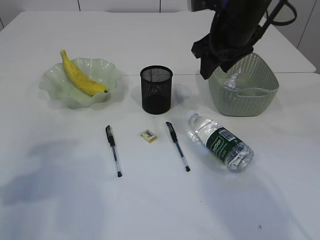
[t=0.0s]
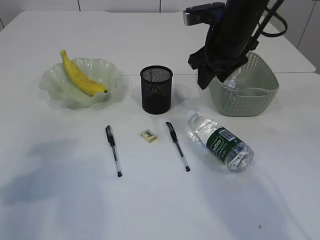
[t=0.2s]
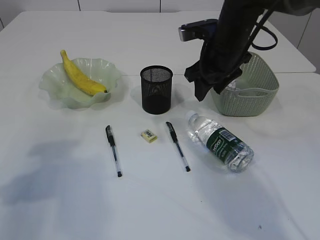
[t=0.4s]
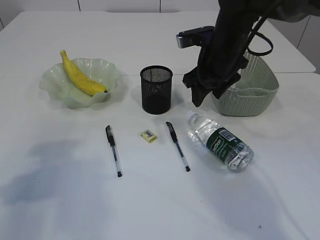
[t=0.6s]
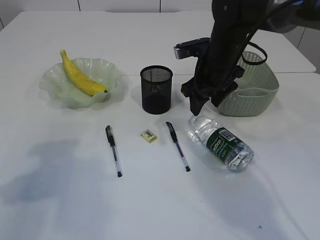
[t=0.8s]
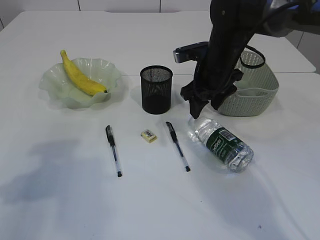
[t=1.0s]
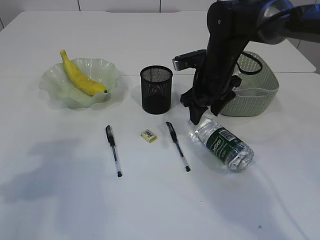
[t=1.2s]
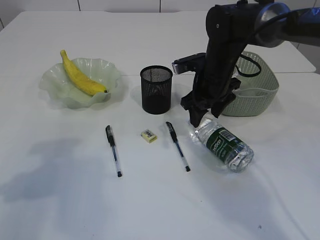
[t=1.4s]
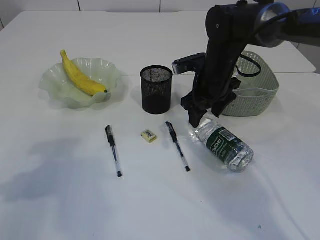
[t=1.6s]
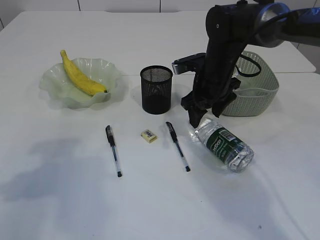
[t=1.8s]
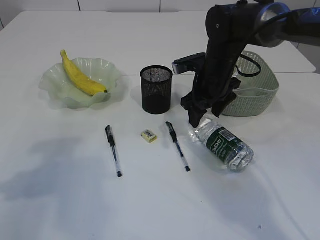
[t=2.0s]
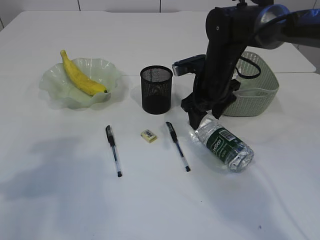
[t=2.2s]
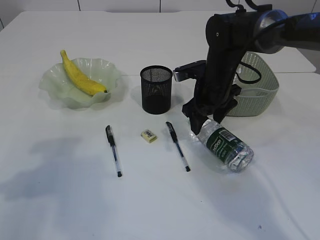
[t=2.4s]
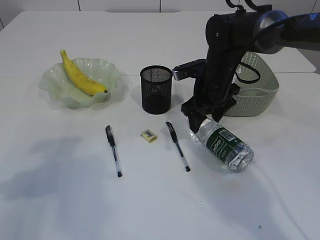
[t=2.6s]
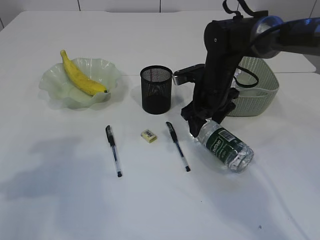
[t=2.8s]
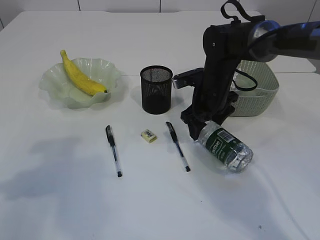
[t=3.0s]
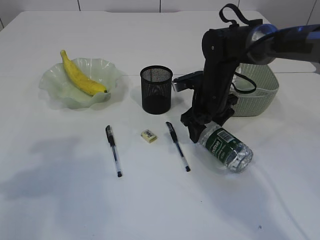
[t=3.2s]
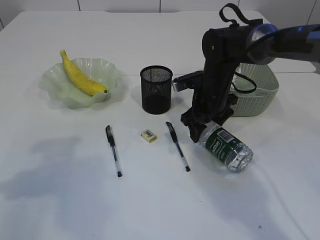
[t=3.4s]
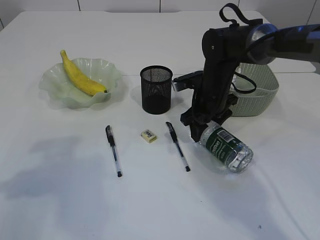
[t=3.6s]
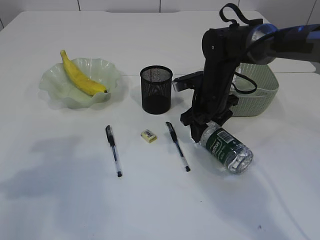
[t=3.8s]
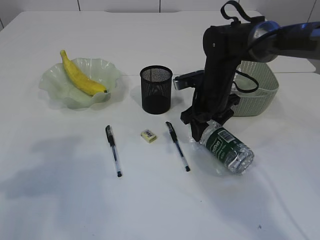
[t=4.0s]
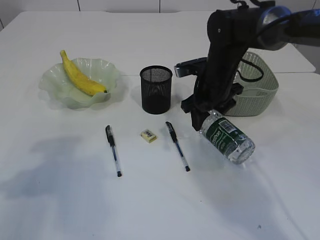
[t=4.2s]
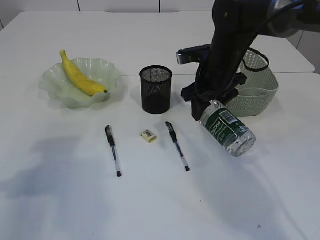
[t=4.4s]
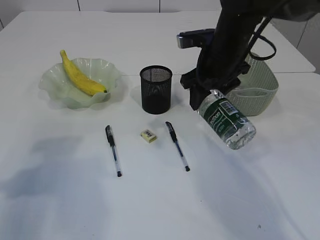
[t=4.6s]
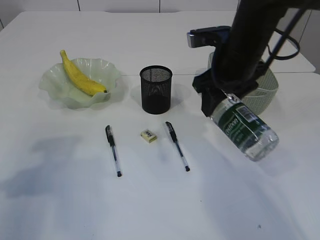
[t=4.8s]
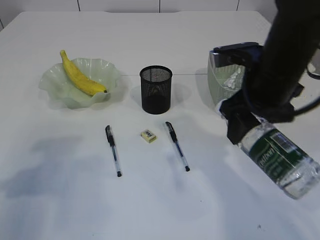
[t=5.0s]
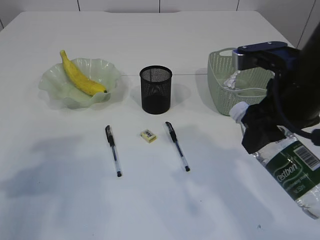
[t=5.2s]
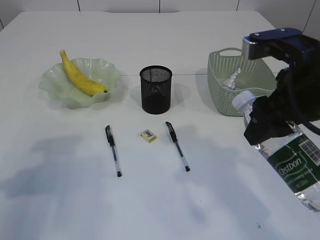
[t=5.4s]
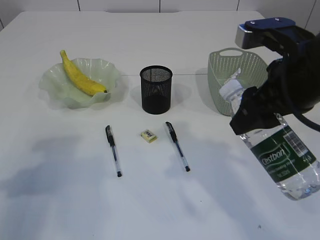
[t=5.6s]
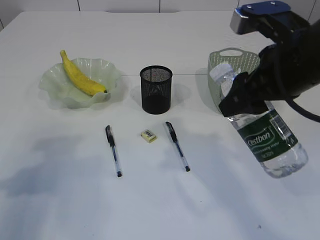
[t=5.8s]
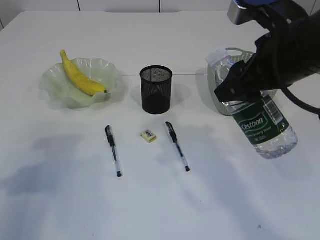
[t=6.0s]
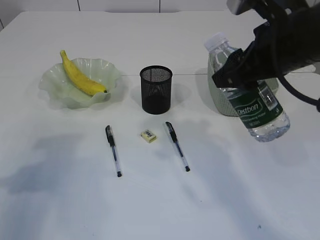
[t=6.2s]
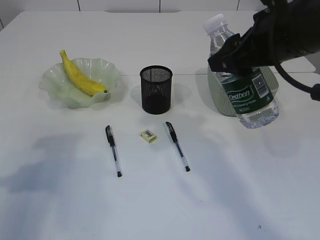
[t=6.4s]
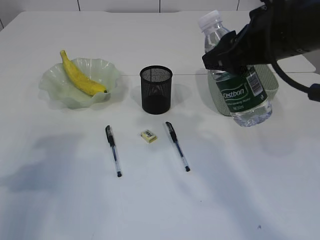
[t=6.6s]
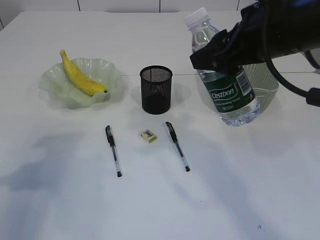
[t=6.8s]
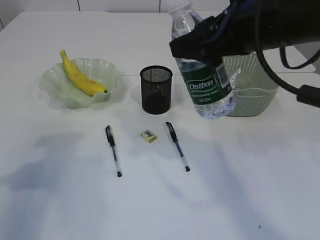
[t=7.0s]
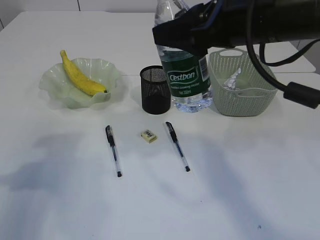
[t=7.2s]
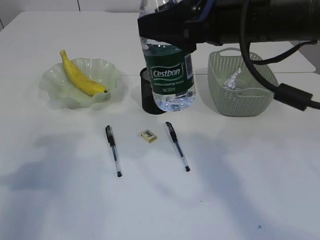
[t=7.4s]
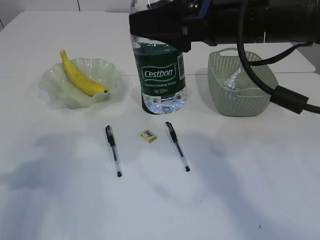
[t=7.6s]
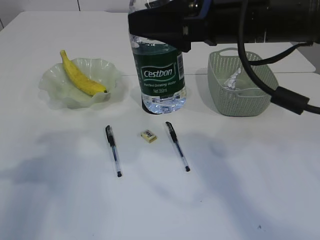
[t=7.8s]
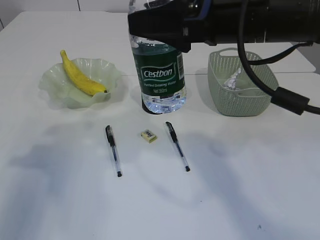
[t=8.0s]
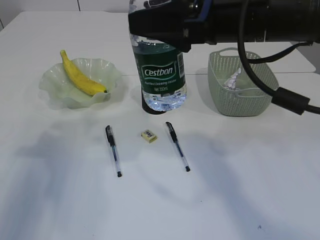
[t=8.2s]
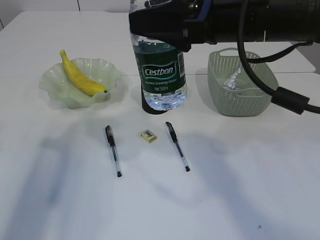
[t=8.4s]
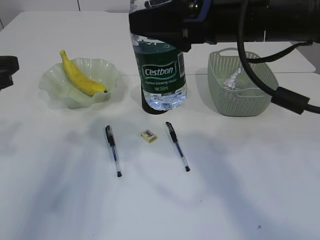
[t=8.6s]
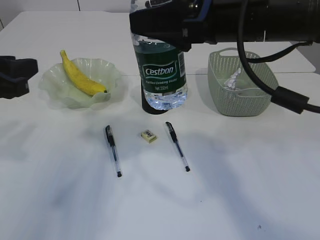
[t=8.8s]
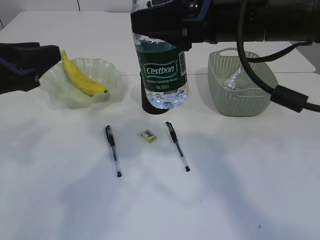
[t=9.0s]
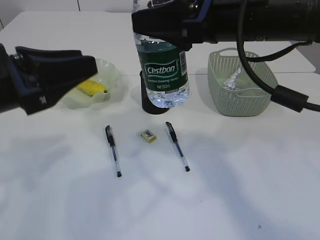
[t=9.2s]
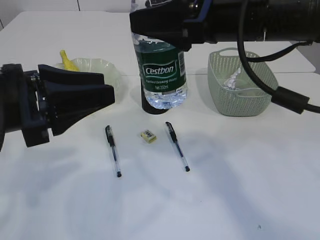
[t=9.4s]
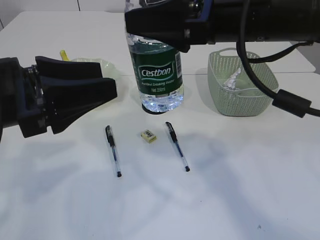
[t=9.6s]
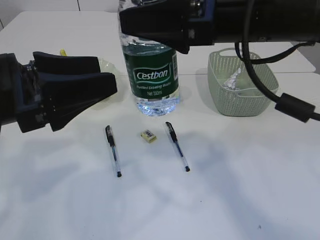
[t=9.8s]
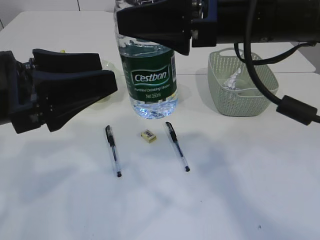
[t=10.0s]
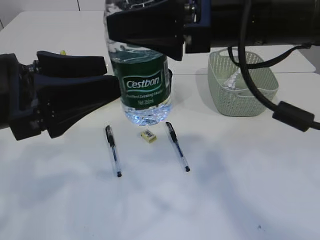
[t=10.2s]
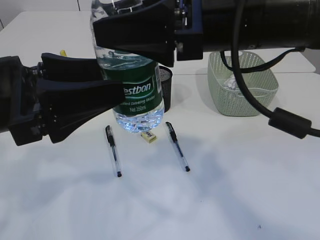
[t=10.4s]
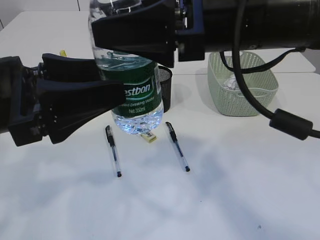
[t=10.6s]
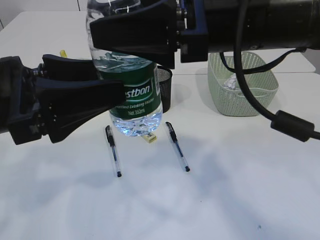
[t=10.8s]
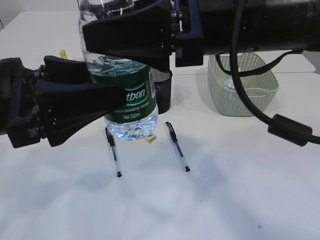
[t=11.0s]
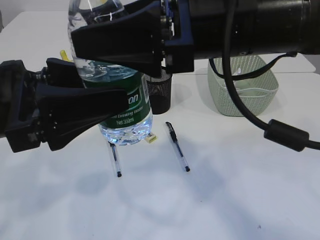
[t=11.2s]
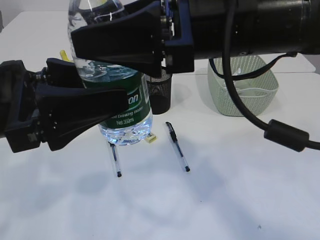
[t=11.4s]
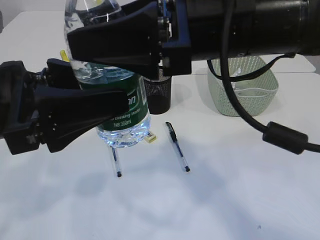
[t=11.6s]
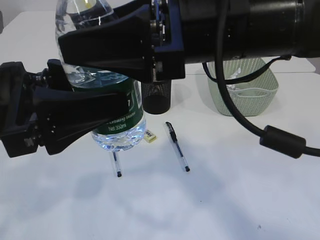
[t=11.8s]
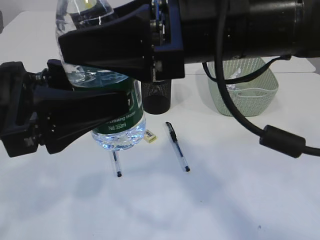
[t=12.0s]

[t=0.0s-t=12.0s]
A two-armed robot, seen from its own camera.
Step, t=0.0s to t=4.6s: Pick up the bottle with the right arm.
t=0.0s to t=1.6s: The right gripper shifts some 10 cm downward.
t=1.6s to t=3.0s: The grippers move only a little.
t=3.0s to t=4.4s: The right gripper travels upward by about 5 cm.
t=4.4s to t=6.0s: The right gripper shifts roughly 20 cm backward and upward.
t=6.0s to t=7.6s: The right gripper travels to the left by approximately 5 cm.
t=7.6s to t=9.0s: The left gripper is displaced to the right by roughly 10 cm.
t=9.0s to t=10.4s: The left gripper heads to the right, covering roughly 5 cm, and opens up.

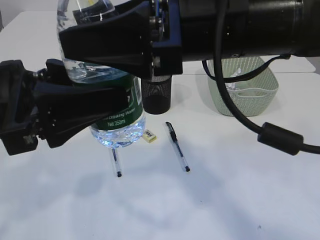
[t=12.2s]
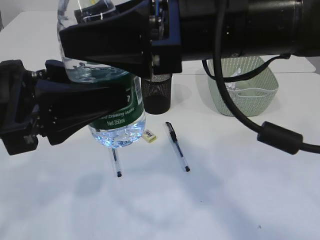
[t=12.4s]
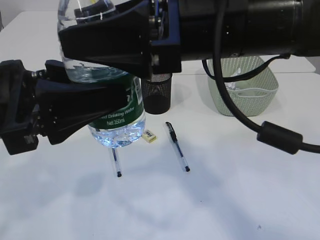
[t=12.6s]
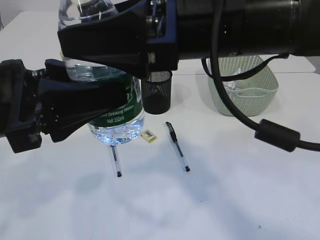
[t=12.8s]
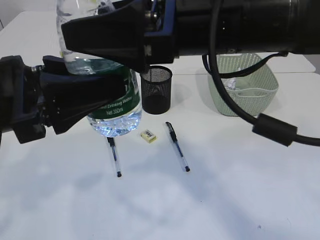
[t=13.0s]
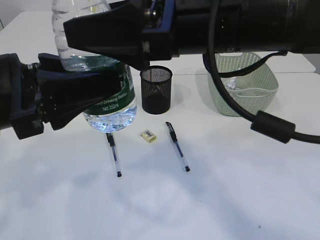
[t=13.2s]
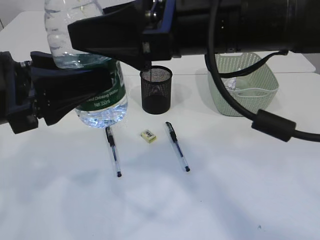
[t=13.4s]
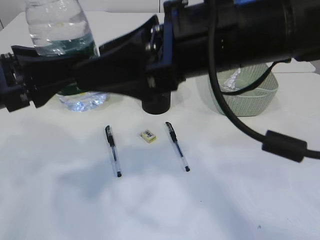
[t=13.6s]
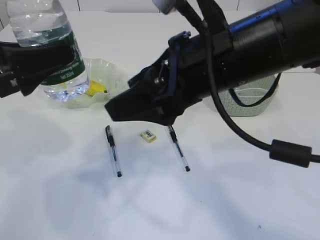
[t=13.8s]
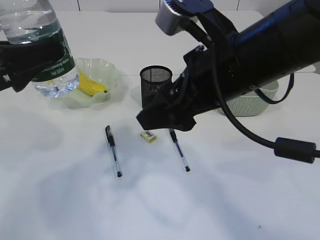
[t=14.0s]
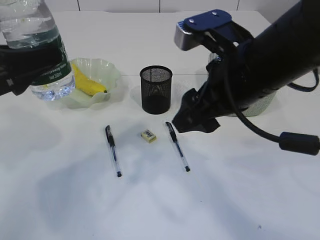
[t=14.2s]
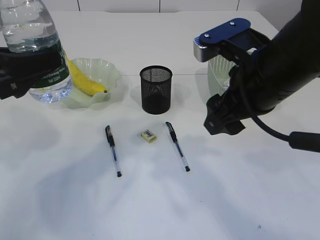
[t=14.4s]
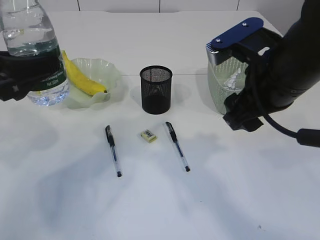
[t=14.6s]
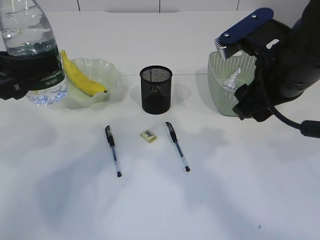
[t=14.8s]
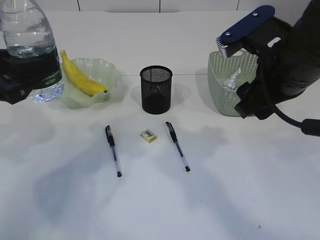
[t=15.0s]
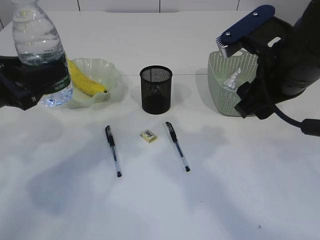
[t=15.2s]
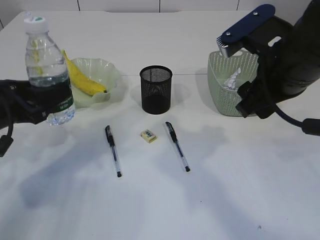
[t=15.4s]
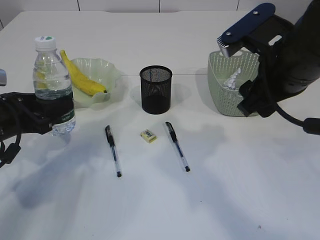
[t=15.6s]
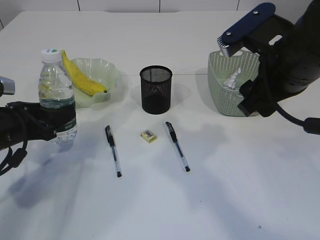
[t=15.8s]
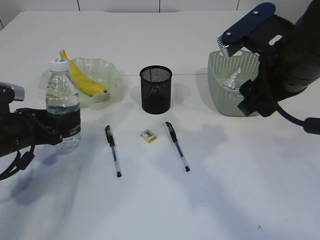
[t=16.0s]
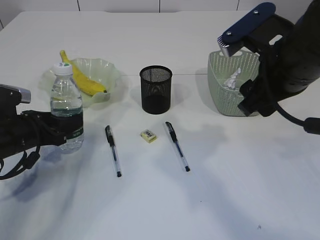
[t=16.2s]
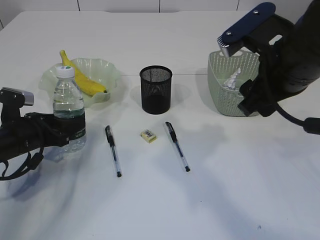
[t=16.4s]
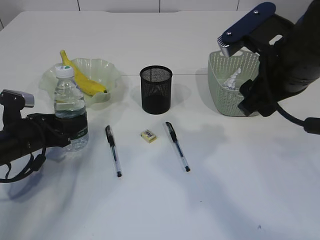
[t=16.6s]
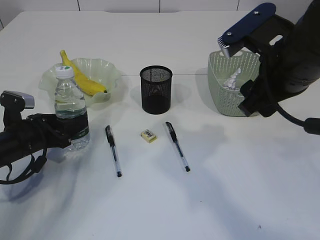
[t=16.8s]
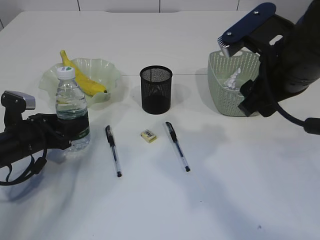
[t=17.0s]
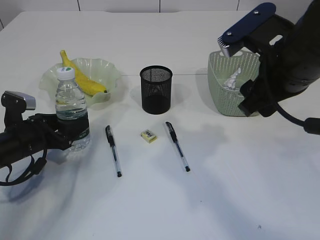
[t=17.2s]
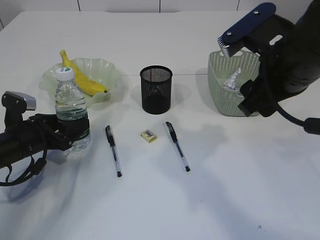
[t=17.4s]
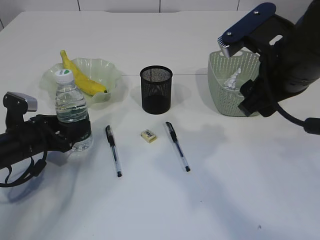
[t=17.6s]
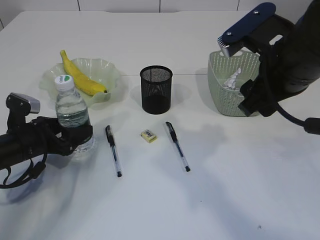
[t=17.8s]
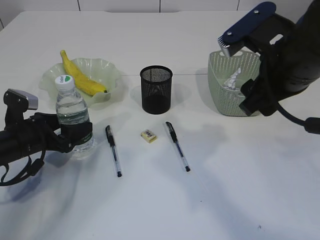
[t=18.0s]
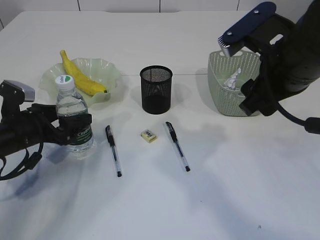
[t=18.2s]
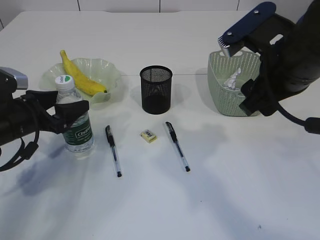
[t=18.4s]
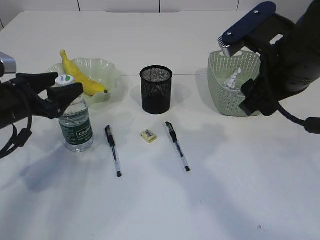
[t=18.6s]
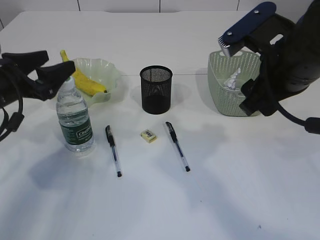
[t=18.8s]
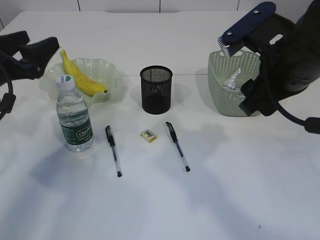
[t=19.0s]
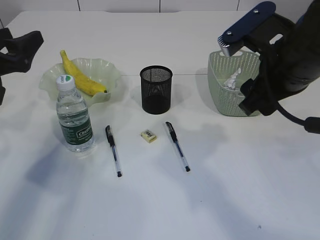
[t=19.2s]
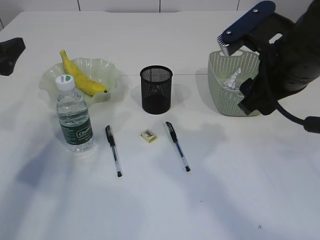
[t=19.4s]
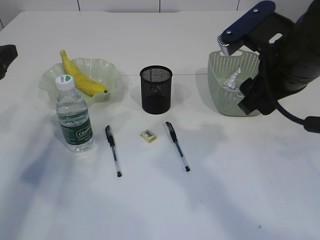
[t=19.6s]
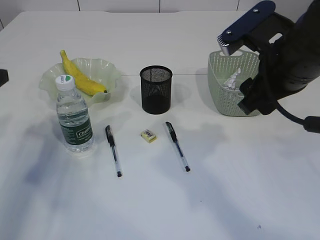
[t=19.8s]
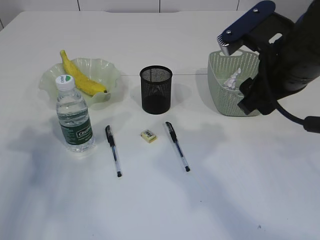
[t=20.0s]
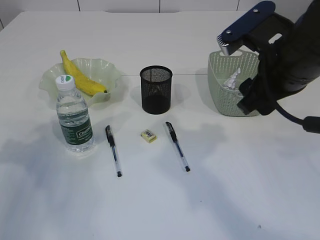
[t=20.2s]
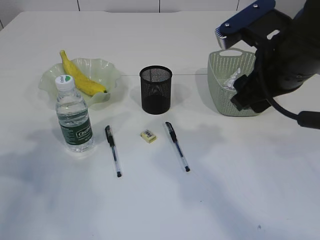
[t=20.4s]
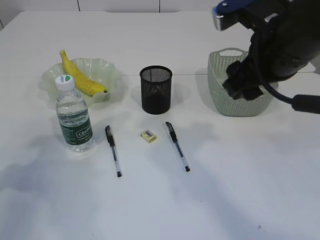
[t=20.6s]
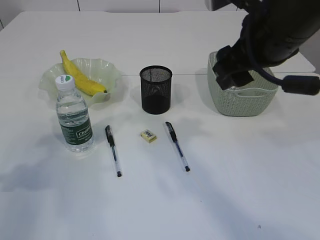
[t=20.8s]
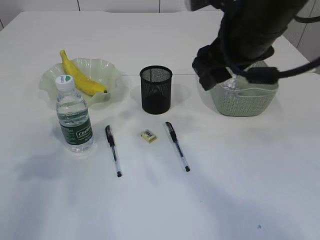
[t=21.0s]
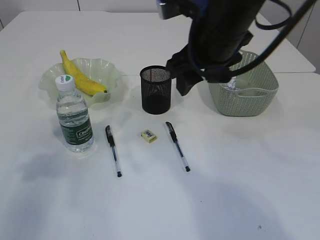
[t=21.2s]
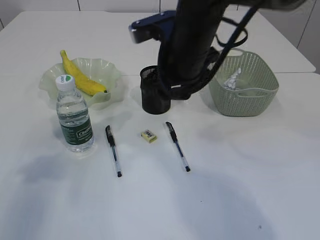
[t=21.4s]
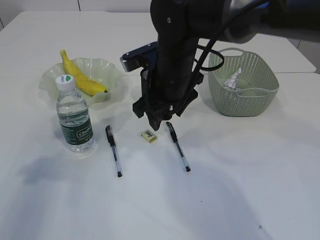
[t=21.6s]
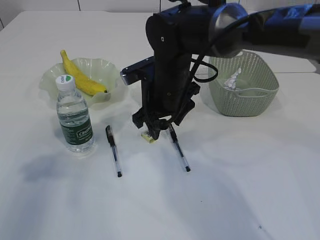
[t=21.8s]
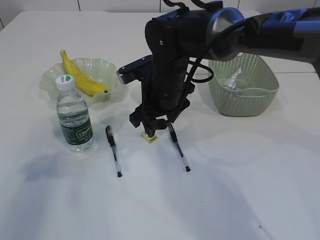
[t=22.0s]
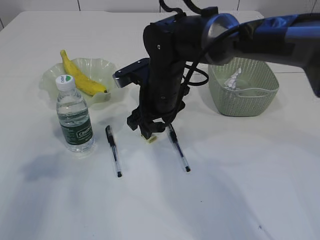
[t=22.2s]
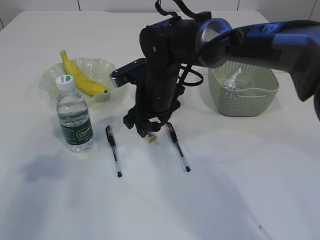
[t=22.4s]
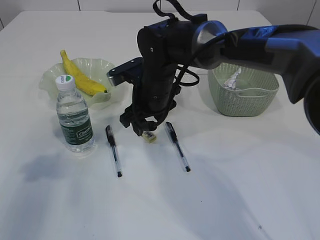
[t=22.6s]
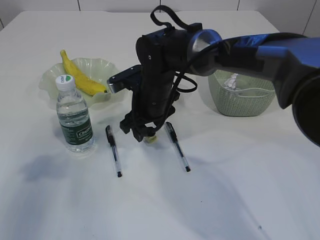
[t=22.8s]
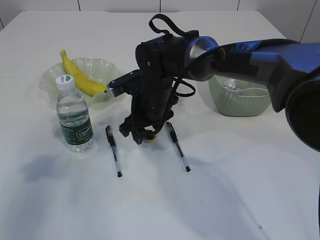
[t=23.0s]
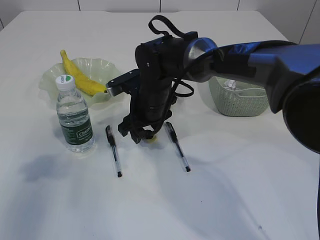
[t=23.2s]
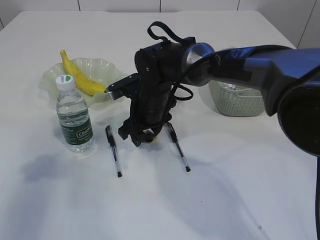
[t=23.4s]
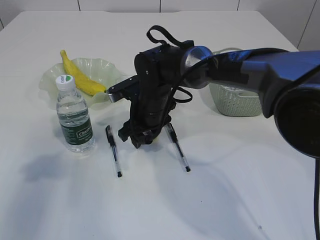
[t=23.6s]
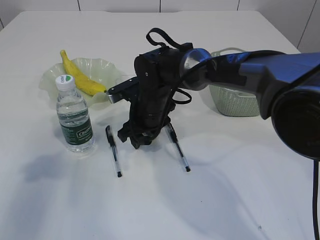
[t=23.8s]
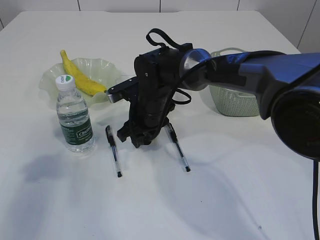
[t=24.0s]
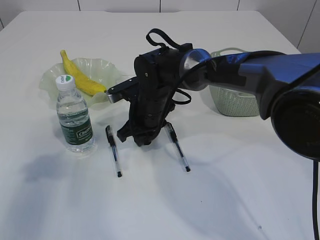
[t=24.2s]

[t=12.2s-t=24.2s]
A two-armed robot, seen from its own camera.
Step, t=13.8s to t=18.8s: Place the bottle.
t=12.2s to t=13.8s: The left gripper moves to the left, approximately 5 cm.
t=13.8s to t=15.2s: The left gripper changes place by some 5 cm. The right gripper travels to the right by about 10 cm.
t=15.2s to t=16.6s: The left gripper travels downward by roughly 15 cm.
t=16.6s to t=18.2s: The left gripper opens up.
t=18.2s to t=19.8s: The left gripper shifts some 15 cm upward and to the left.
t=19.8s to t=21.2s: The right gripper is displaced to the left and forward by roughly 10 cm; the left gripper is displaced backward and upward by roughly 10 cm.
t=21.2s to t=22.6s: The right gripper shifts about 20 cm downward, to the left and forward.
t=22.6s to t=24.2s: The right gripper ends up about 5 cm from where it was, and closes its fingers.
